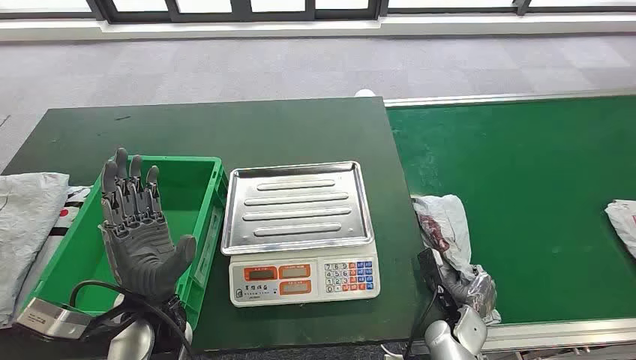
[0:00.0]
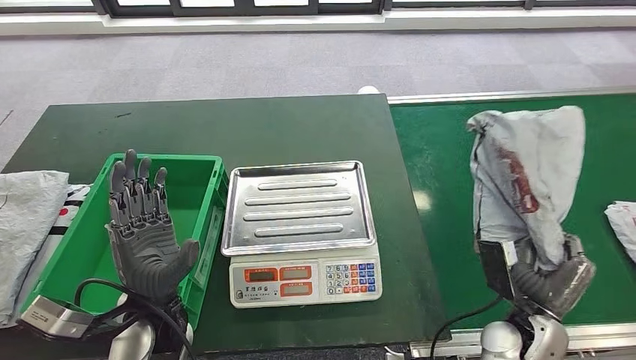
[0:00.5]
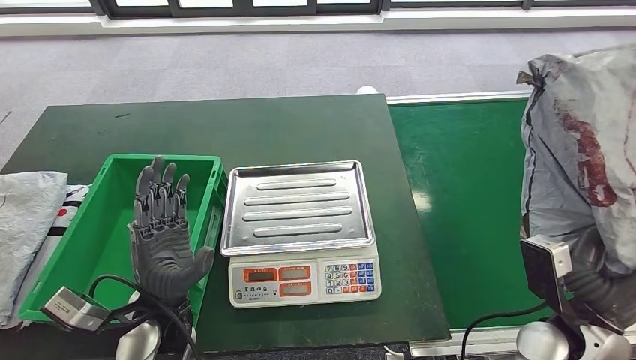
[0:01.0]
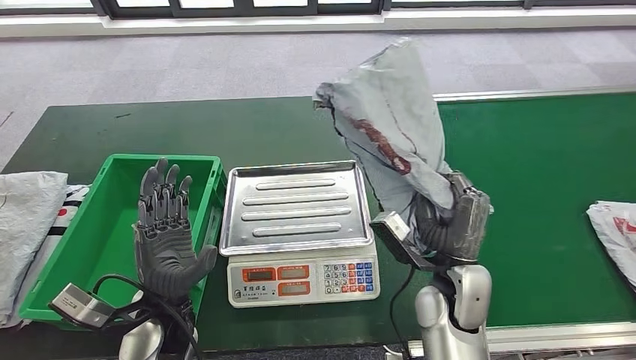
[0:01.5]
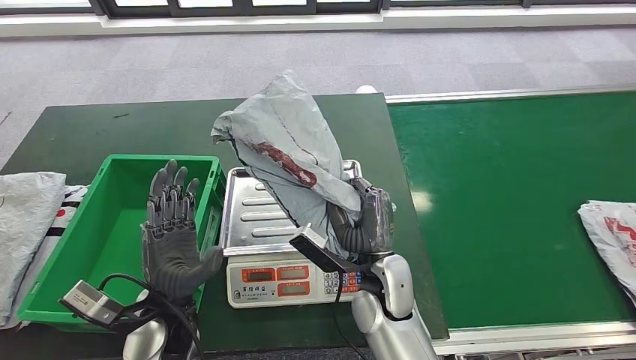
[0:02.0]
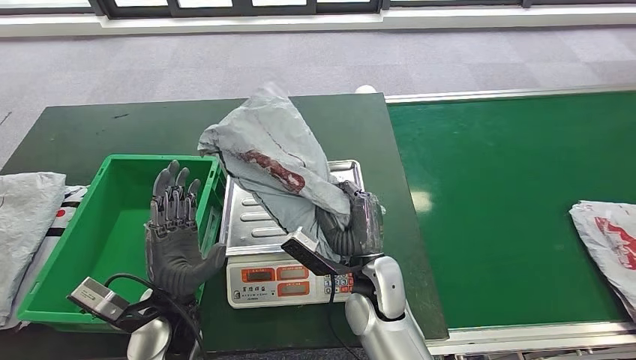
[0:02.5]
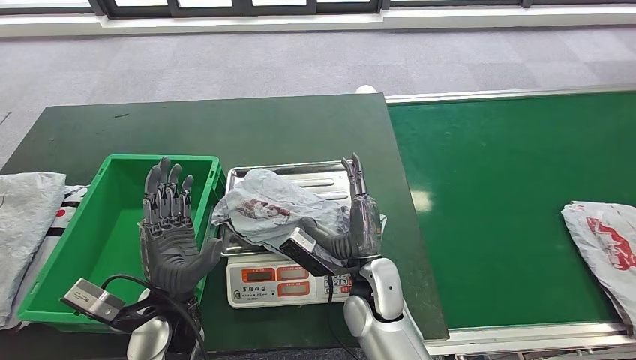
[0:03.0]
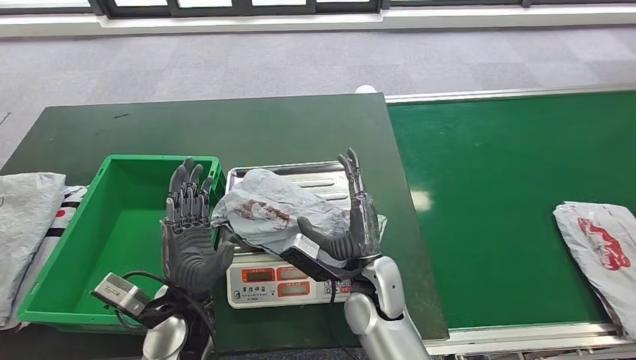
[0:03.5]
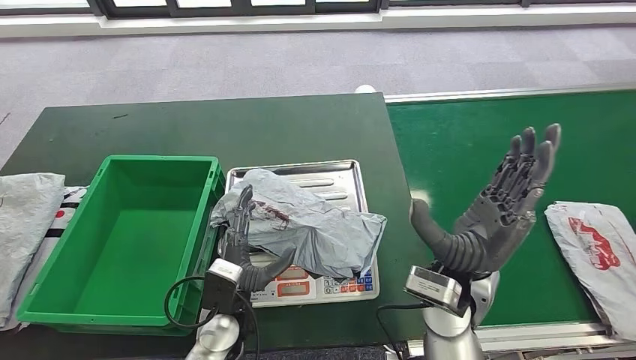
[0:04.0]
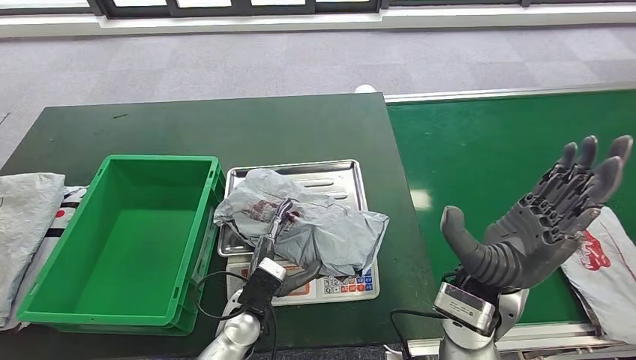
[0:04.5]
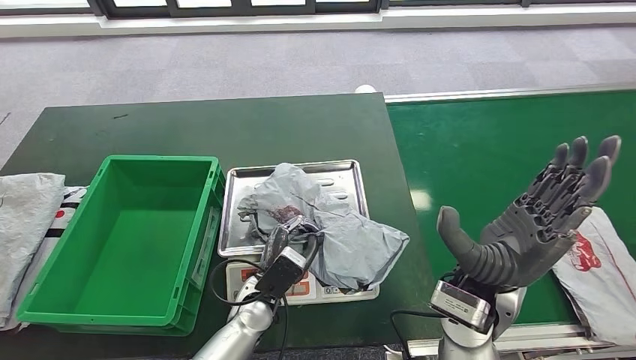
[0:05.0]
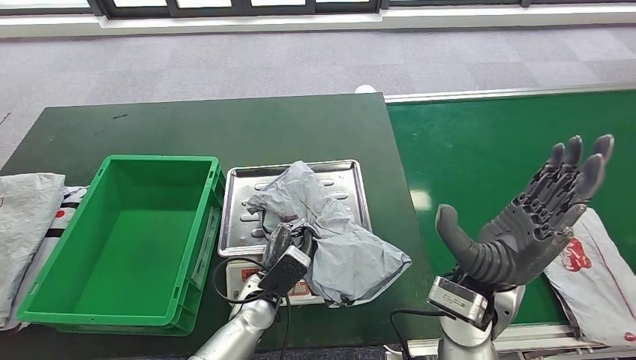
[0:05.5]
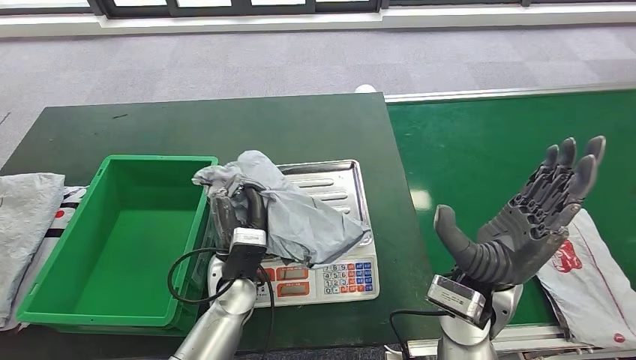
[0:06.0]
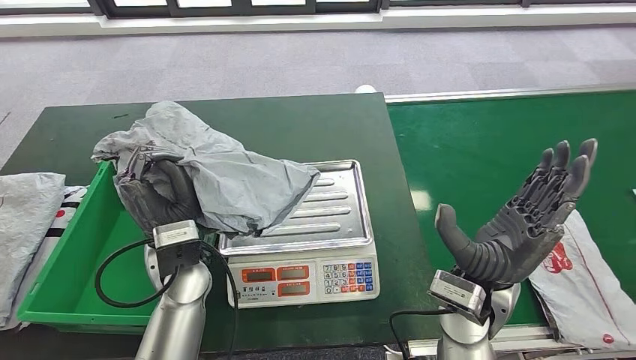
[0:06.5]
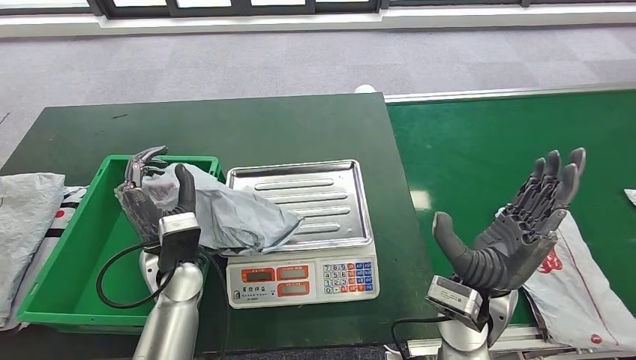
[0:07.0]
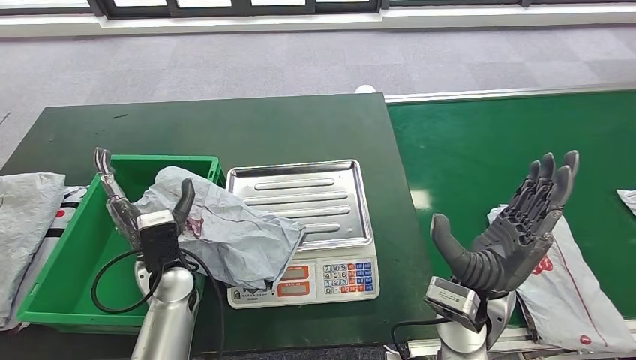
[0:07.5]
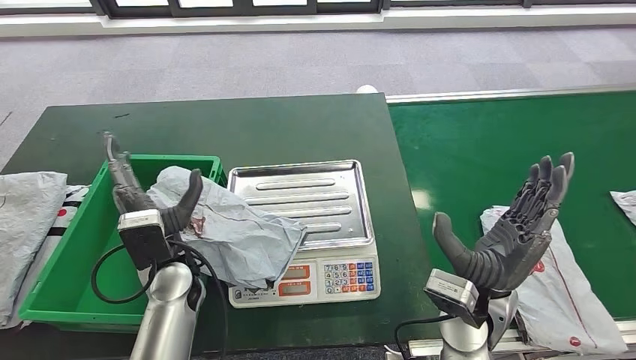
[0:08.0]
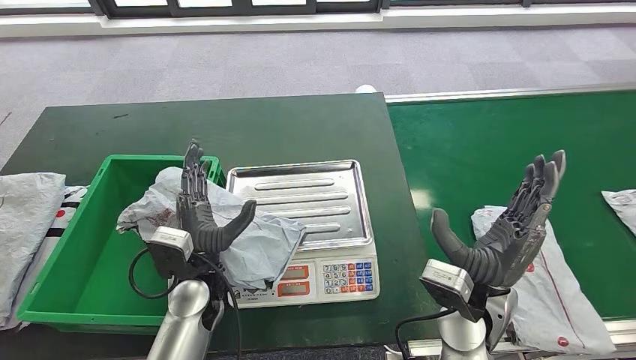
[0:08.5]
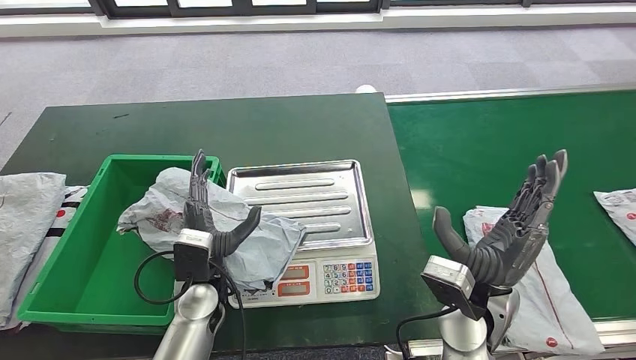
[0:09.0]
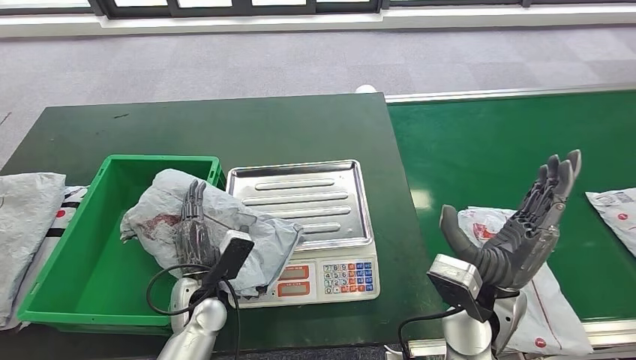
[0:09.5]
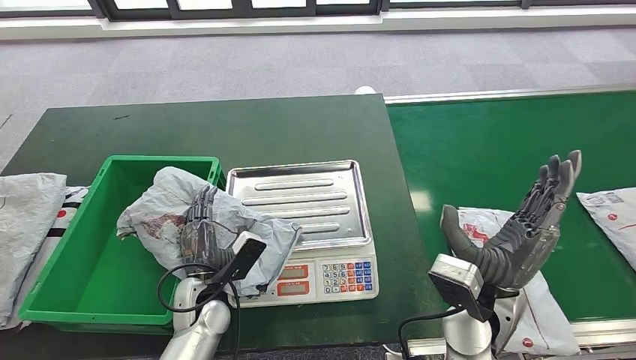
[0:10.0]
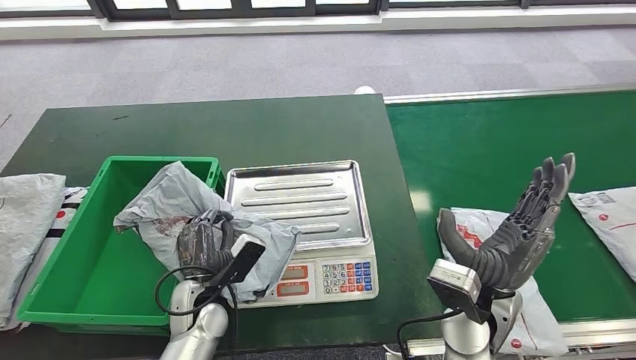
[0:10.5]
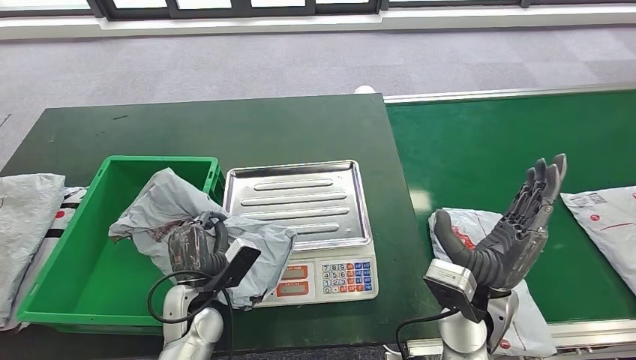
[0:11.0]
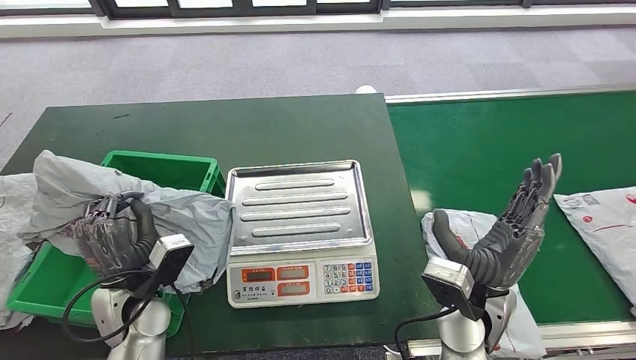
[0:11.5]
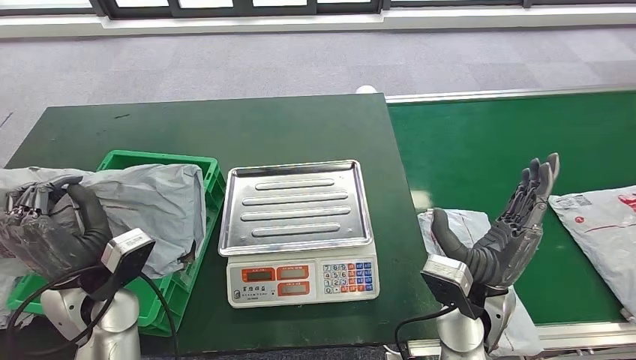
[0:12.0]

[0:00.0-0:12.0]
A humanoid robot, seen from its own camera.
Step, 0:00.0 to 0:01.5: Take the parcel off the conveyor belt.
Step, 0:02.0 to 0:04.5: Place the parcel onto the inbound machine.
Step, 0:05.0 to 0:11.0: Pick up the parcel from the inbound machine.
0:04.0 to 0:06.0: The left hand heads forward, covering some 5 cm.

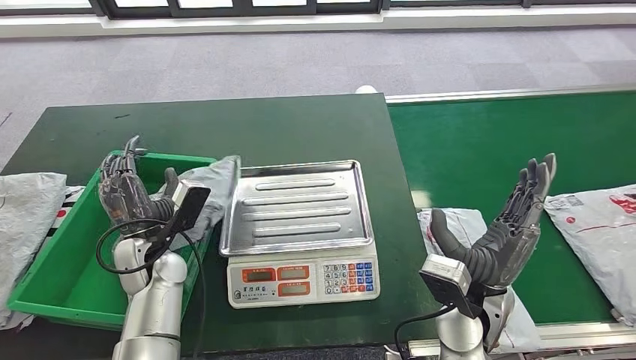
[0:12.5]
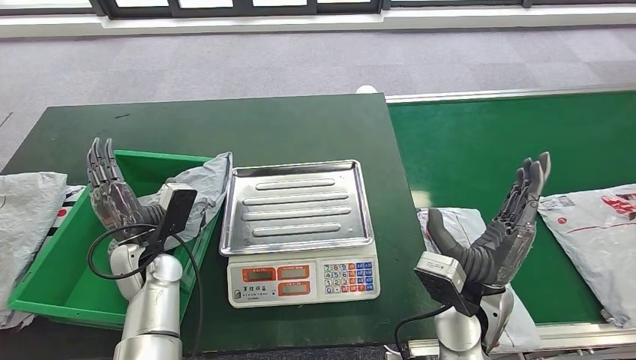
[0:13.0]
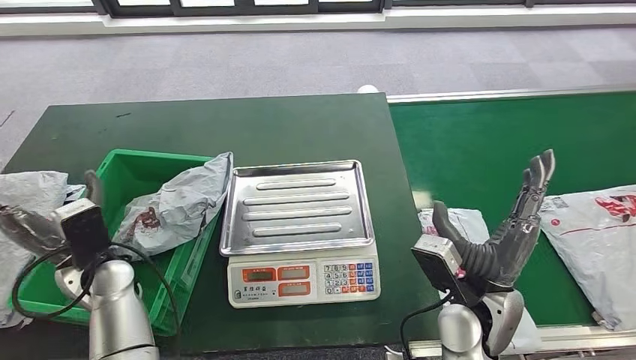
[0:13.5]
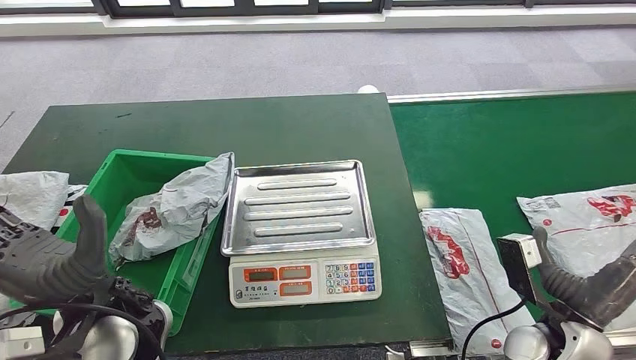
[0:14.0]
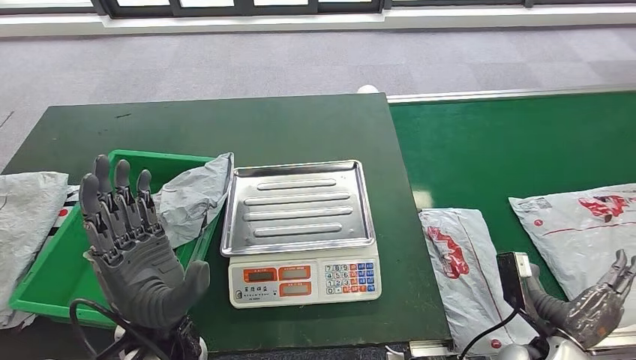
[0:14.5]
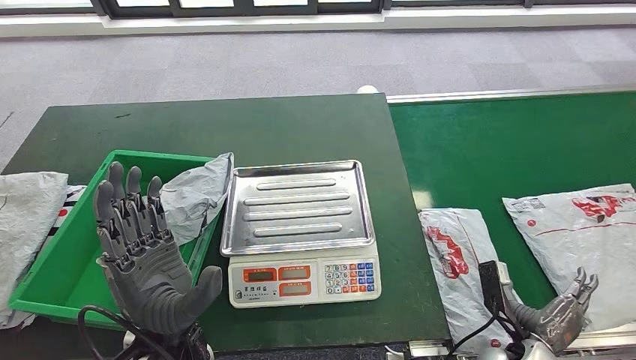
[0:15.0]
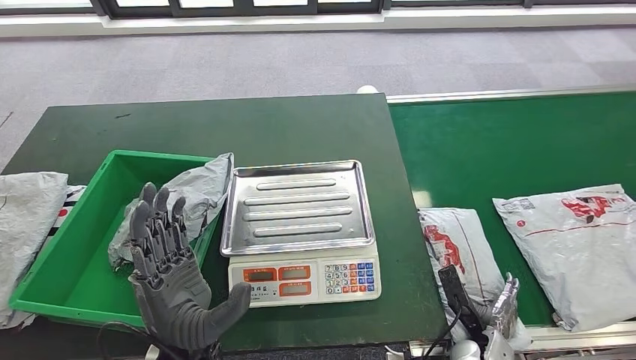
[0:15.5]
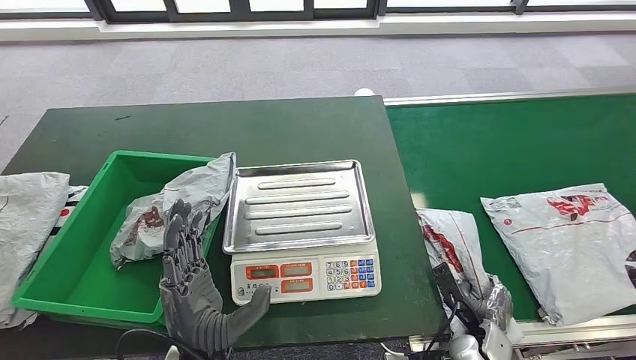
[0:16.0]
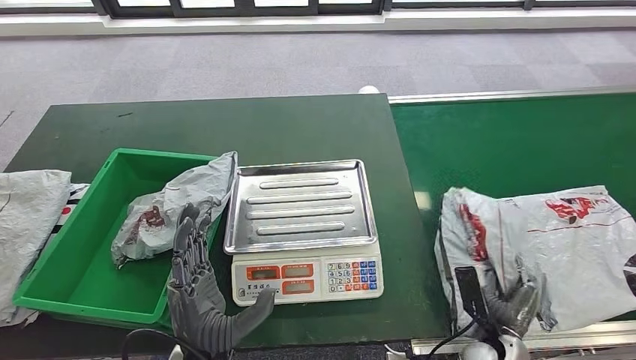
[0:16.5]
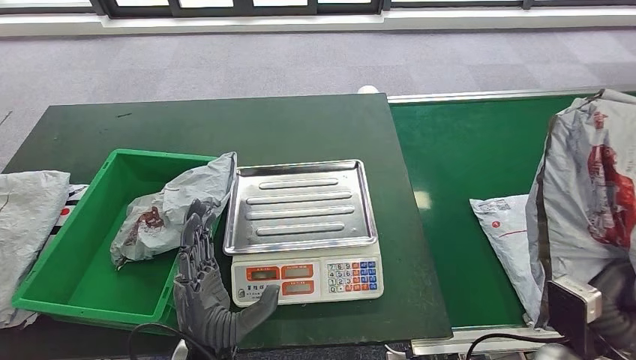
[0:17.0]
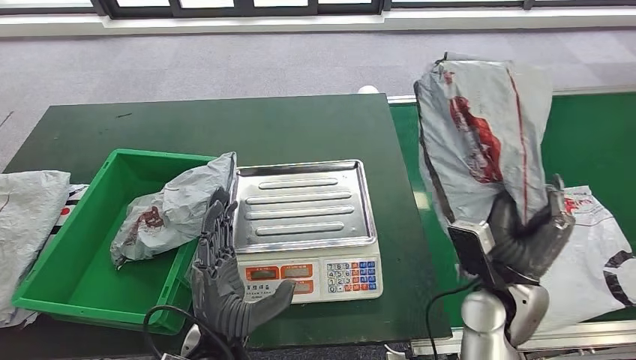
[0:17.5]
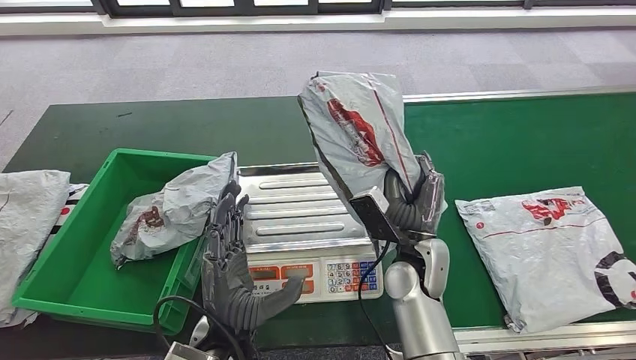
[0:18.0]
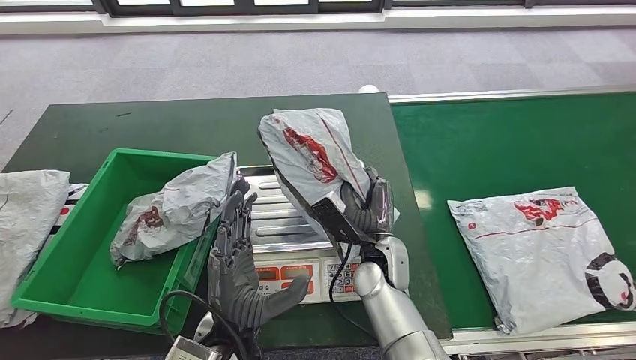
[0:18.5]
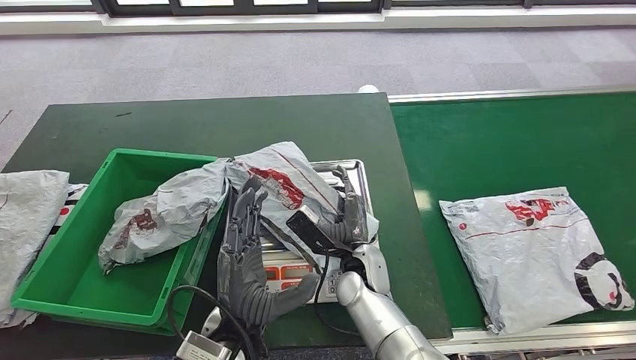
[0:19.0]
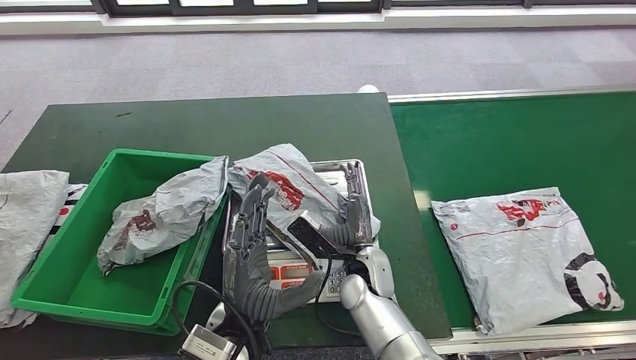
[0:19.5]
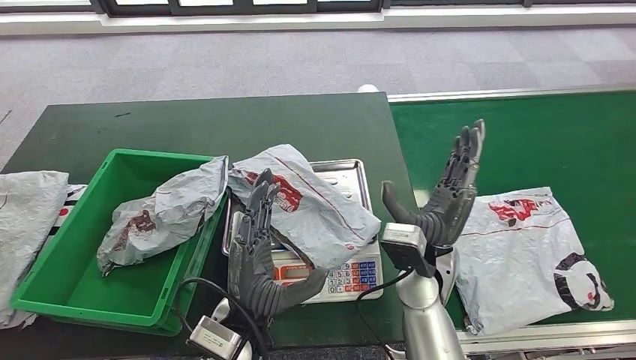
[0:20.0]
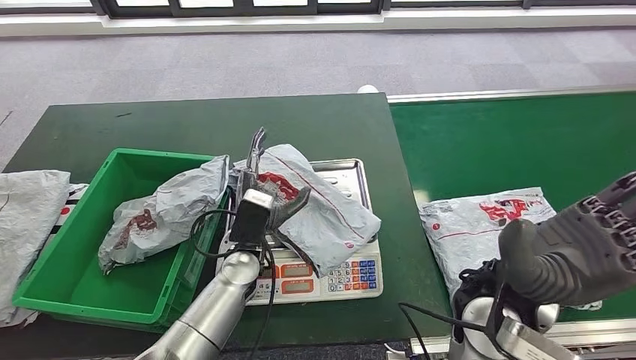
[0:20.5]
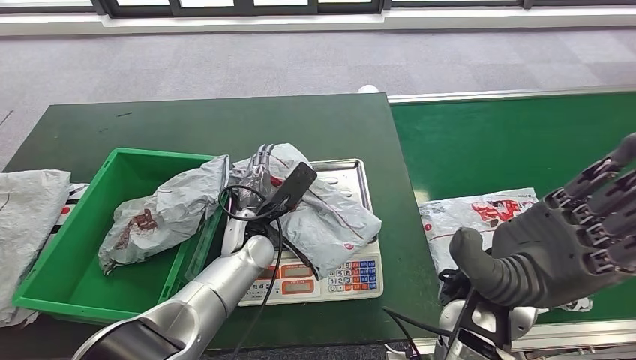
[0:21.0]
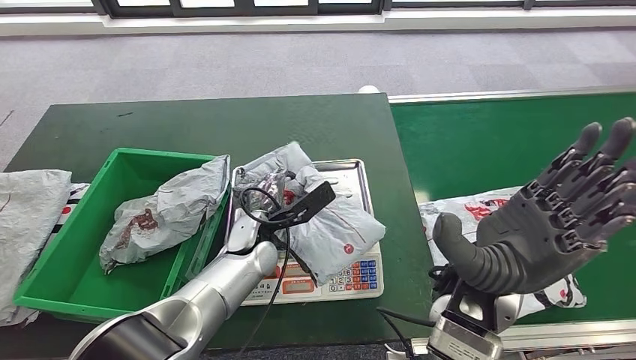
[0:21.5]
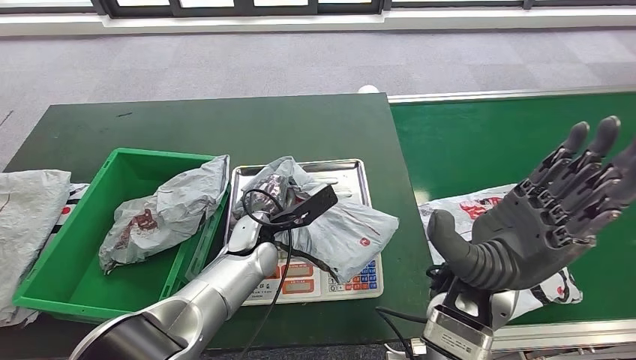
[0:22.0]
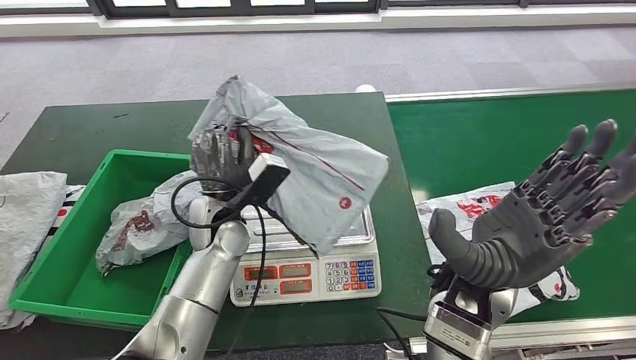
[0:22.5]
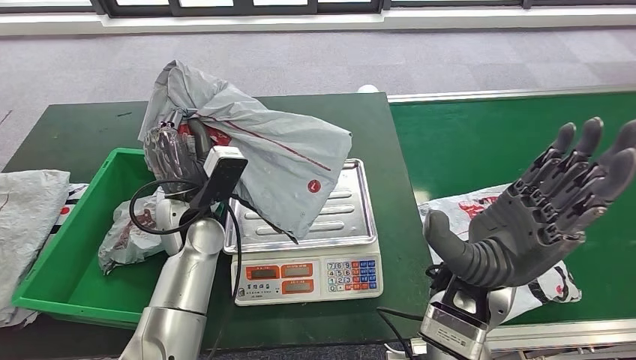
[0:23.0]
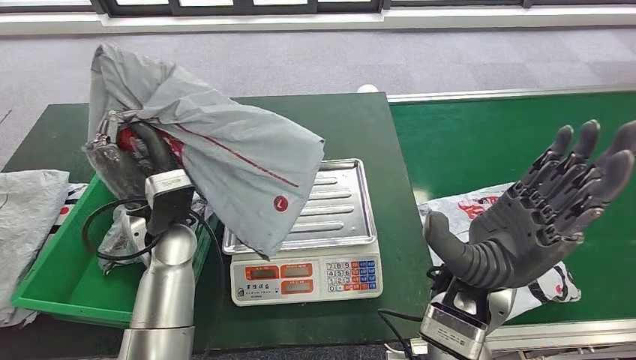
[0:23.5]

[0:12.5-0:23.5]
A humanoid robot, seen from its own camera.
Step, 0:12.5 to 0:14.0: Put the parcel inside the courier box.
Step, 0:14.5 to 0:17.0: Pick up the parcel from the conveyor belt.
Step, 0:17.5 to 0:19.5: Place the parcel onto the inbound machine.
Step, 0:20.0 to 0:23.0: Pick up the parcel from the inbound machine.
